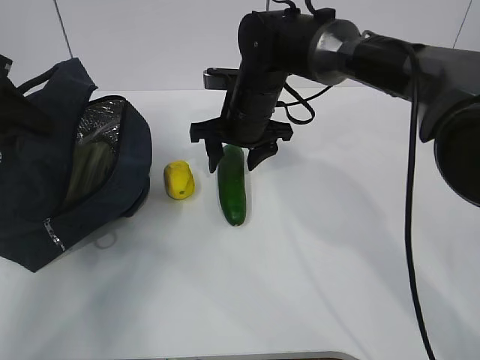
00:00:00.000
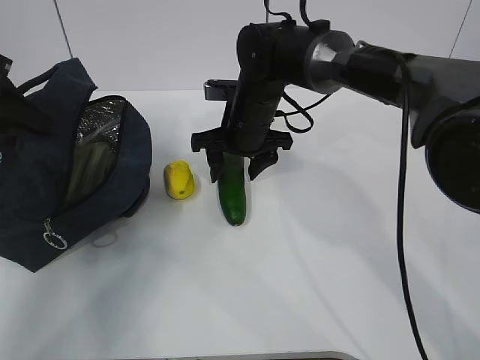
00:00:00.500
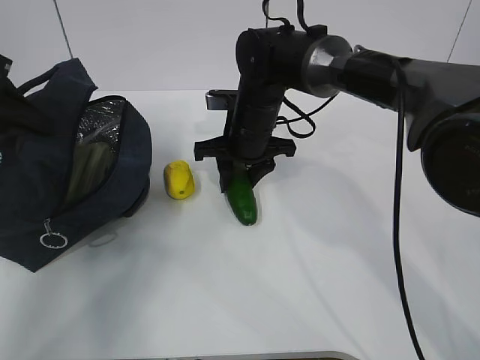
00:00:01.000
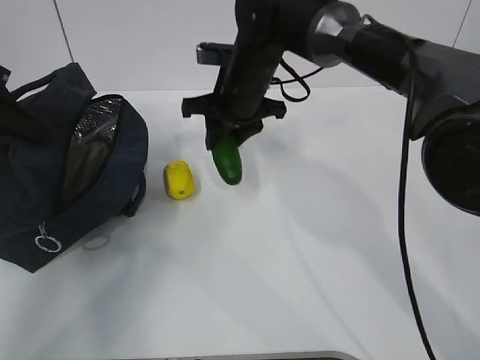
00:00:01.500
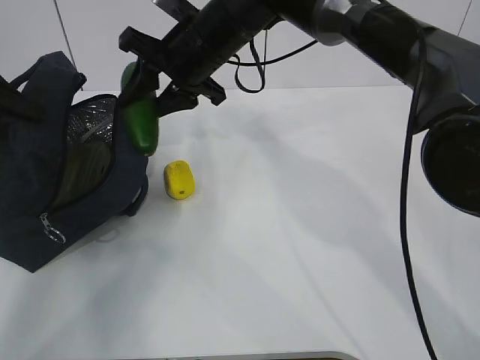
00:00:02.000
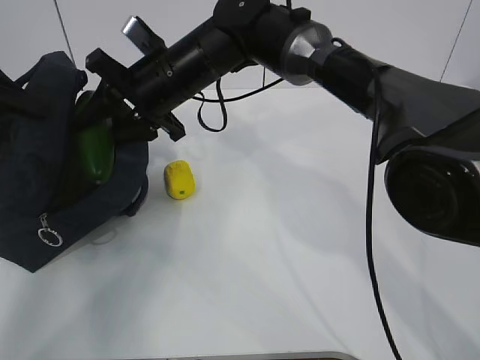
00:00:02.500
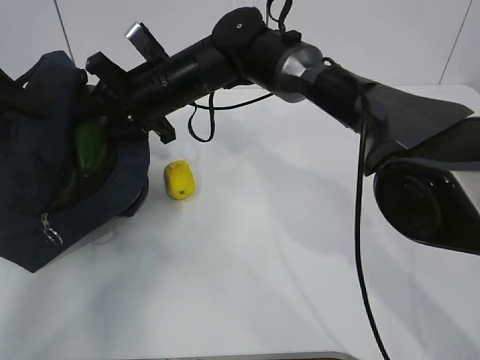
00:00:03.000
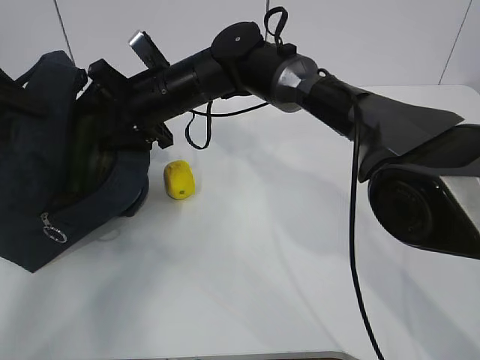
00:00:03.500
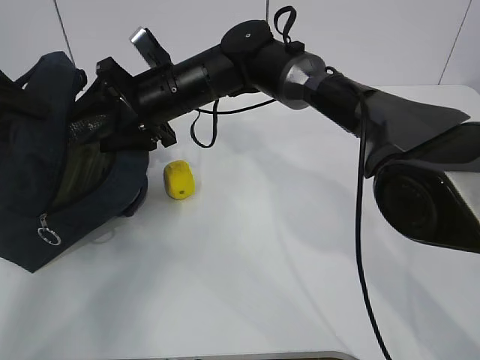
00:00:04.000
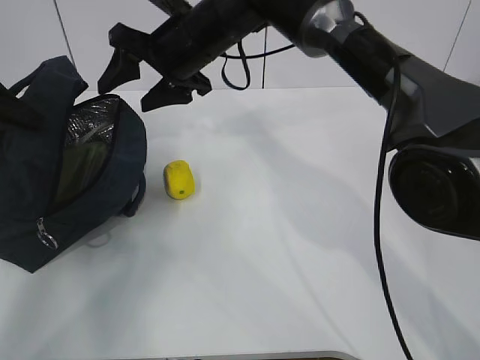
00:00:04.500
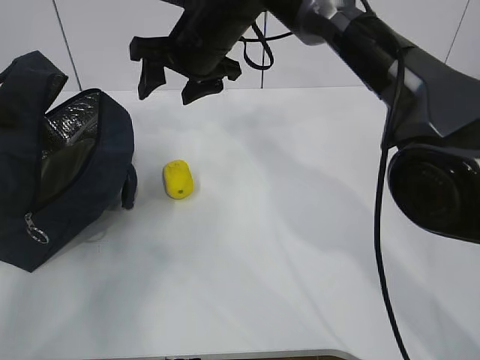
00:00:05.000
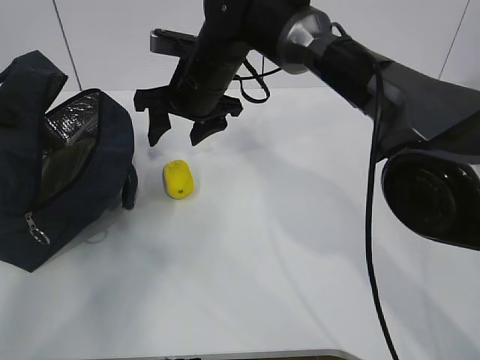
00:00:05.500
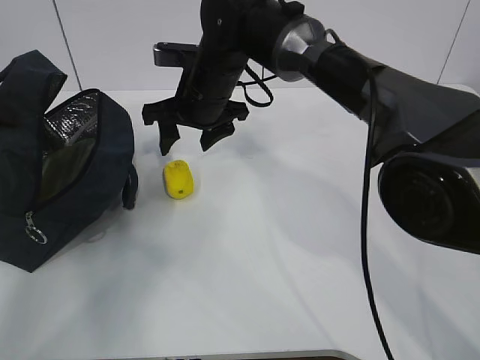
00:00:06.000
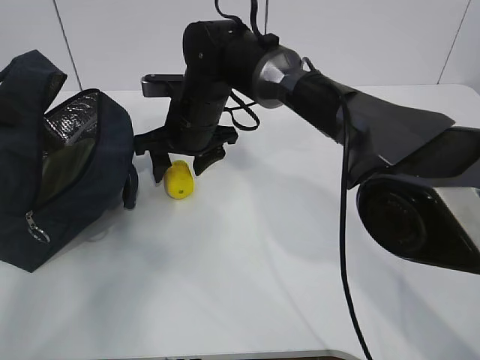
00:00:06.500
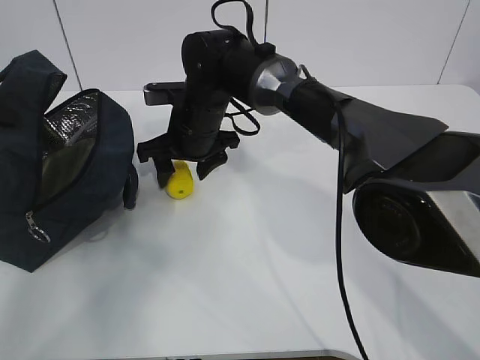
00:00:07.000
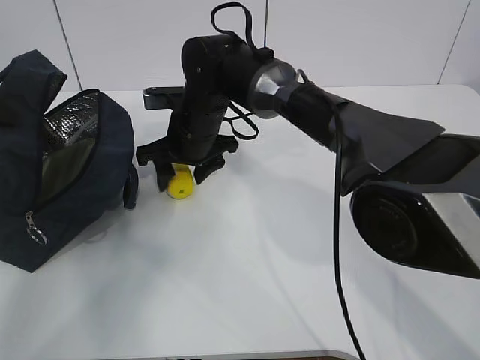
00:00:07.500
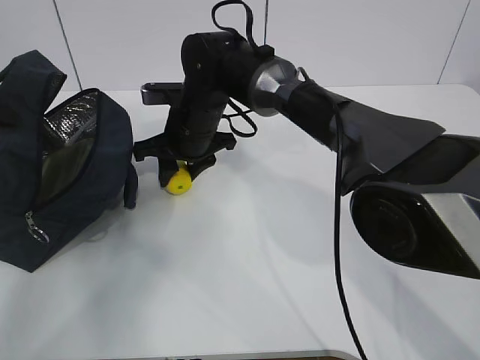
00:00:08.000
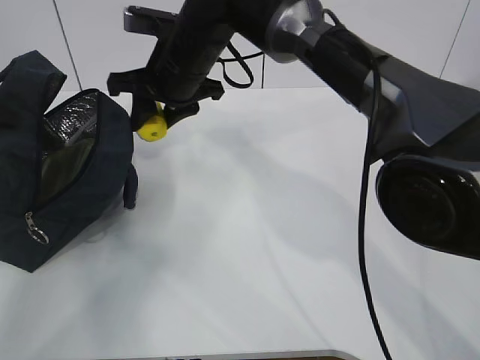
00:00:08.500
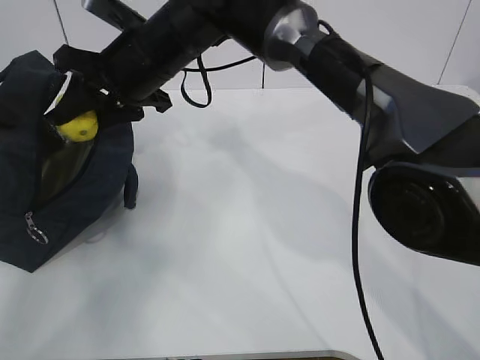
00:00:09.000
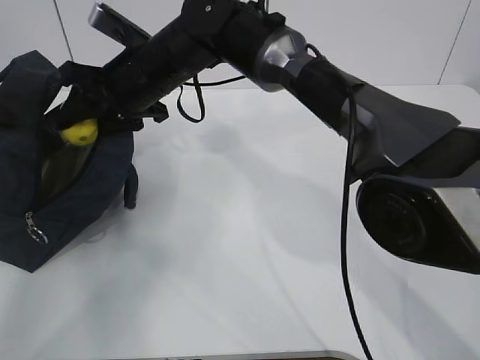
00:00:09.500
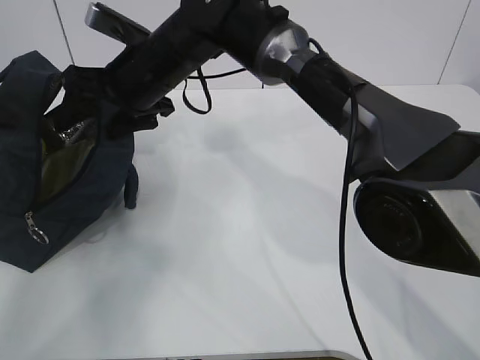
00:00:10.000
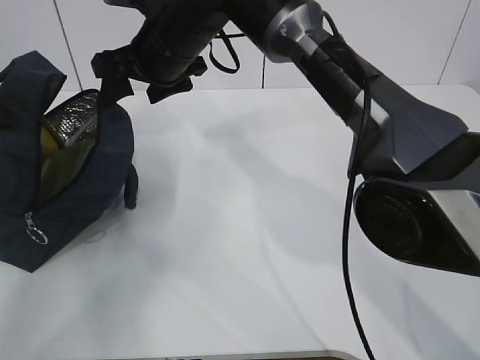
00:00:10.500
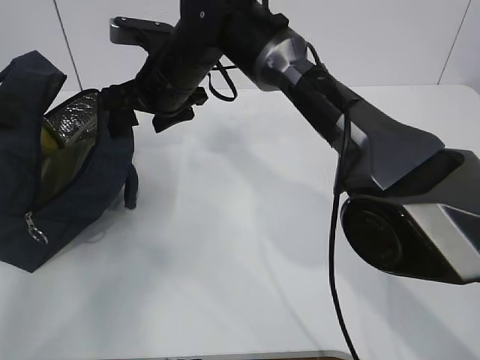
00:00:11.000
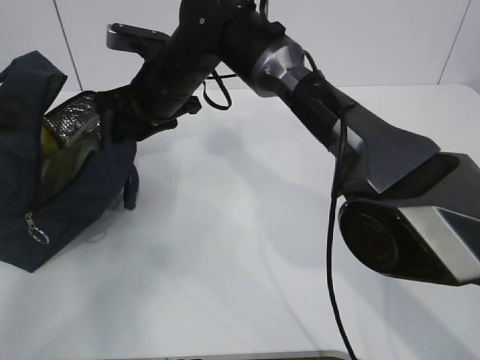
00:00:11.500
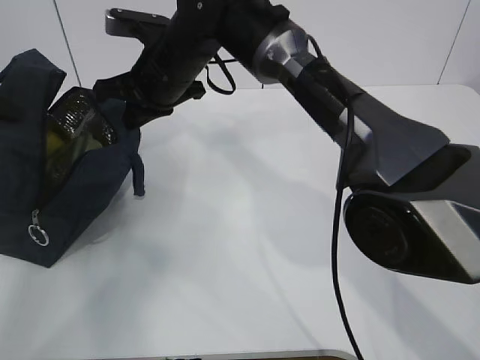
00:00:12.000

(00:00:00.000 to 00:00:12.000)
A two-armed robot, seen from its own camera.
Step, 00:00:00.000 - 00:00:02.500: Grab the lemon with your right hand.
Step, 00:00:05.000 - 00:00:06.000: Grab the lunch bag with your right hand.
Step, 00:00:06.500 - 00:00:08.500: Move the lunch bag to the right.
00:00:00.000 - 00:00:02.000: The right gripper heads upward, covering some 10 cm, and closes its fingers.
00:00:02.000 - 00:00:04.000: The right gripper shifts roughly 5 cm downward, and opens up.
00:00:06.000 - 00:00:08.000: The right gripper shifts by approximately 5 cm, and closes its fingers.
00:00:08.000 - 00:00:10.000: The right gripper shifts about 10 cm upward, and opens up.
00:00:10.000 - 00:00:12.000: The right gripper closes its fingers.

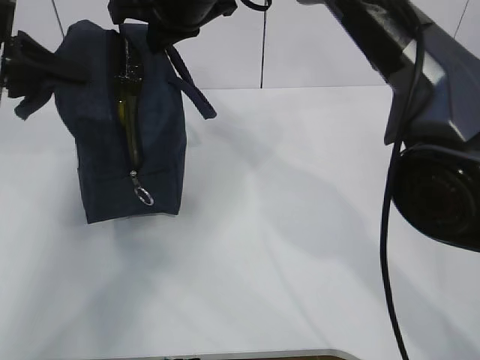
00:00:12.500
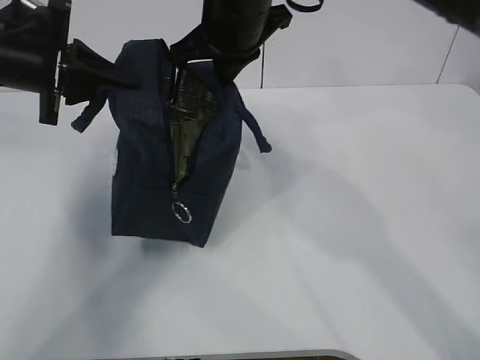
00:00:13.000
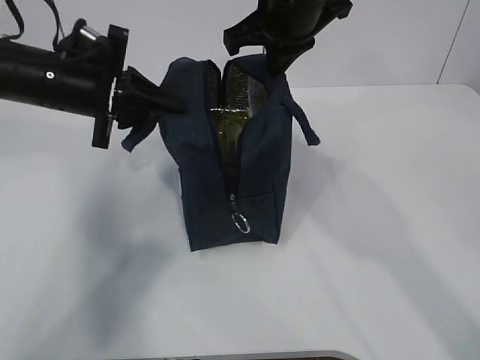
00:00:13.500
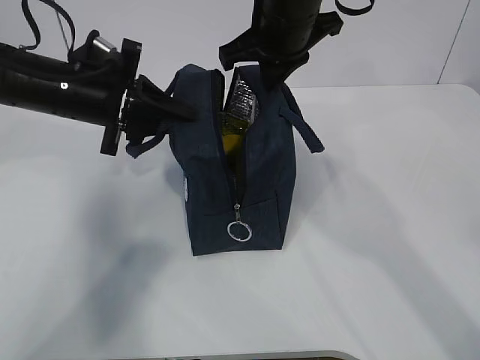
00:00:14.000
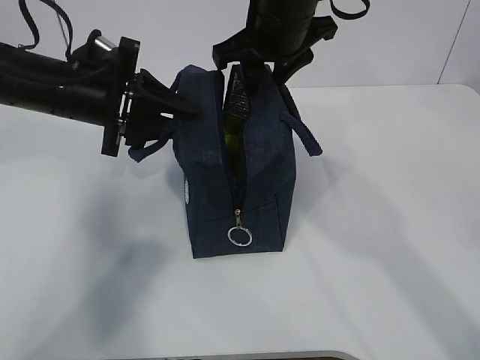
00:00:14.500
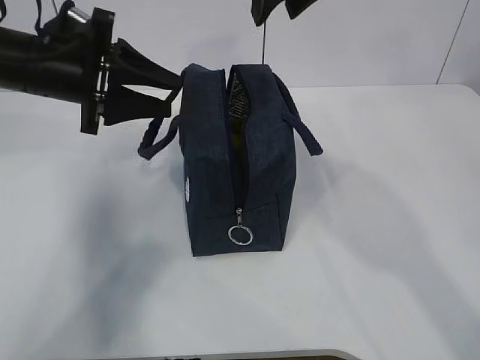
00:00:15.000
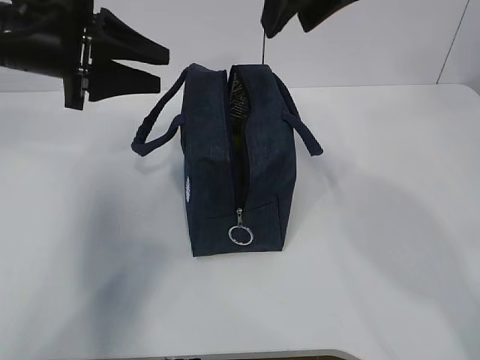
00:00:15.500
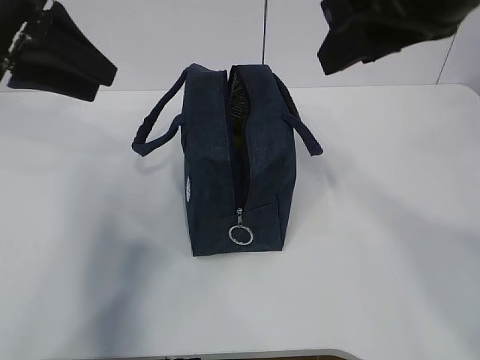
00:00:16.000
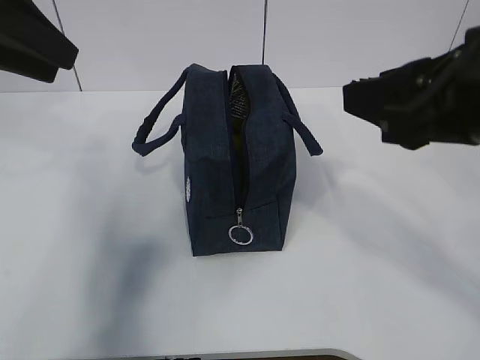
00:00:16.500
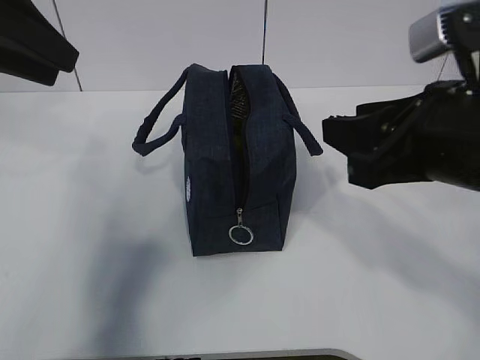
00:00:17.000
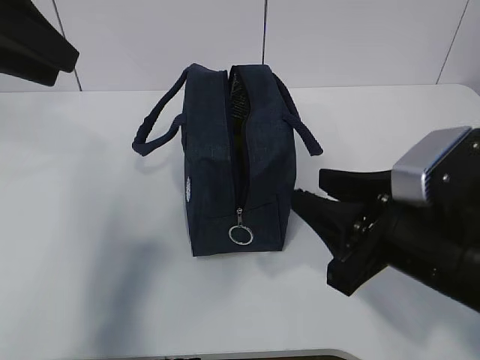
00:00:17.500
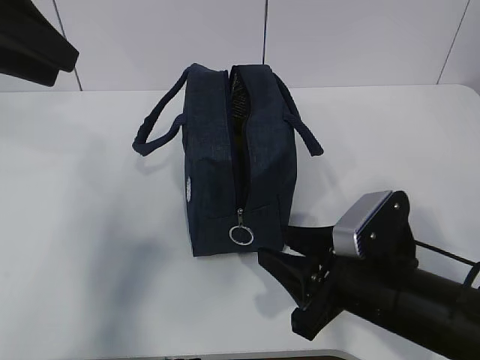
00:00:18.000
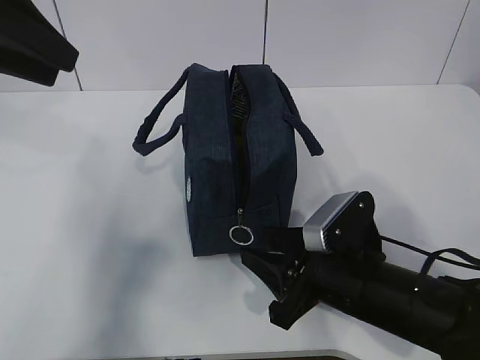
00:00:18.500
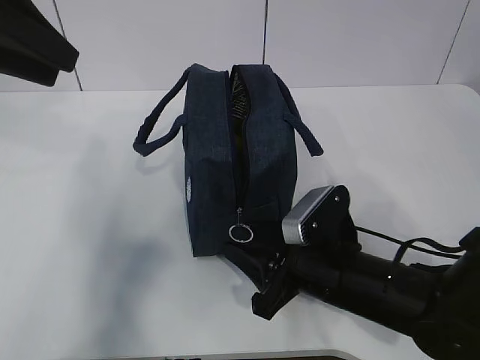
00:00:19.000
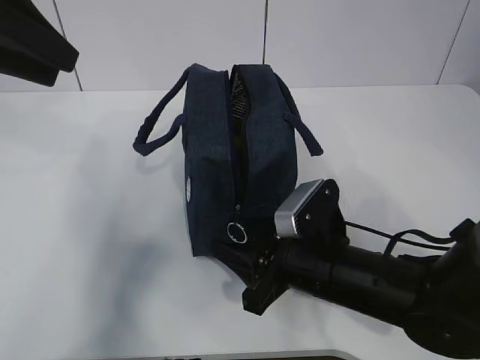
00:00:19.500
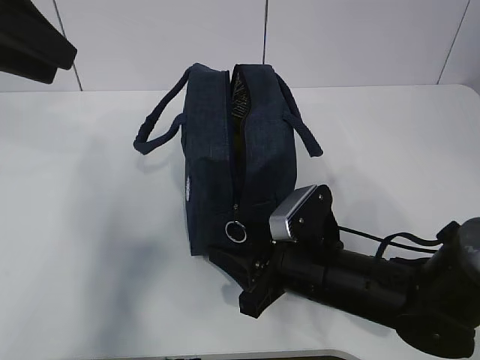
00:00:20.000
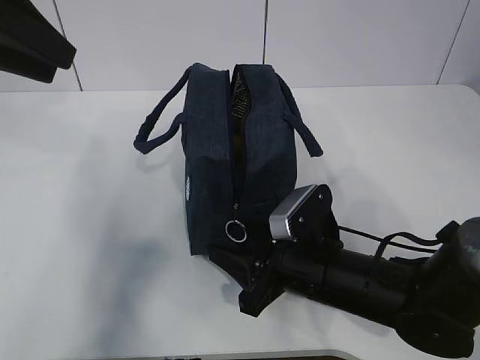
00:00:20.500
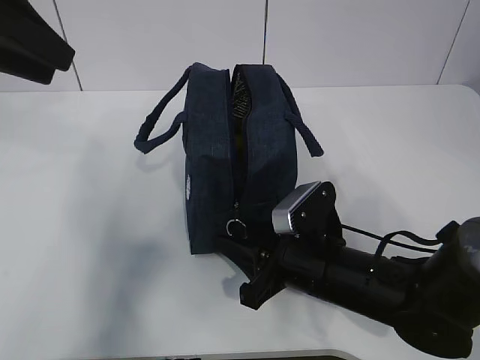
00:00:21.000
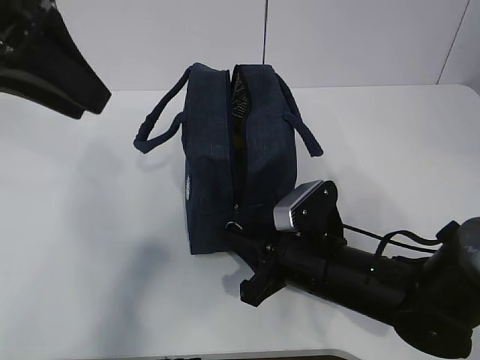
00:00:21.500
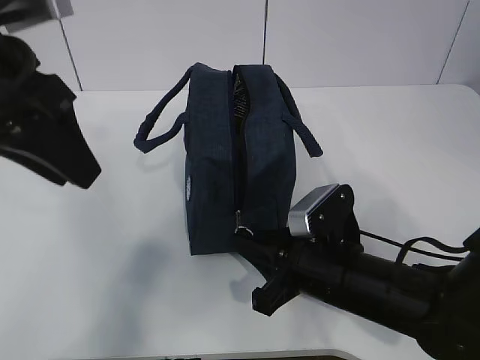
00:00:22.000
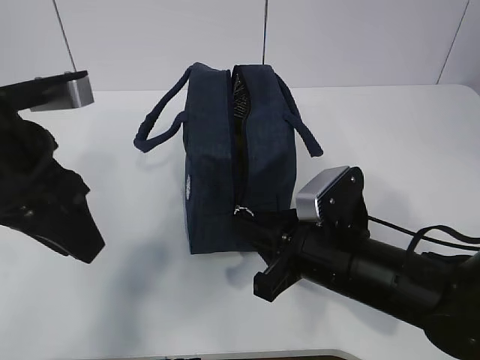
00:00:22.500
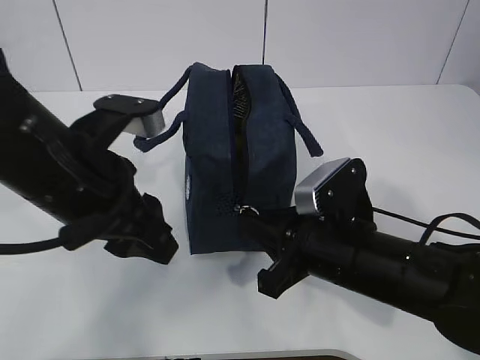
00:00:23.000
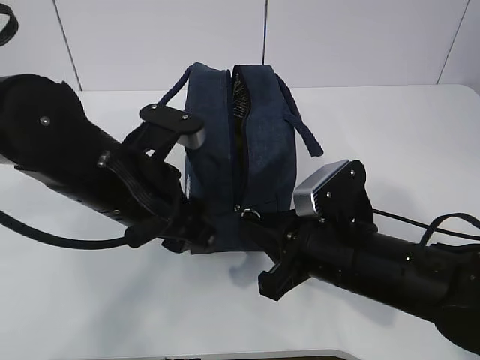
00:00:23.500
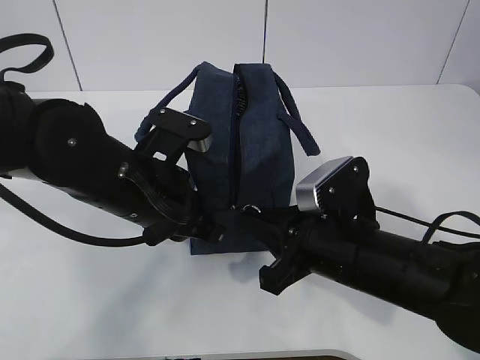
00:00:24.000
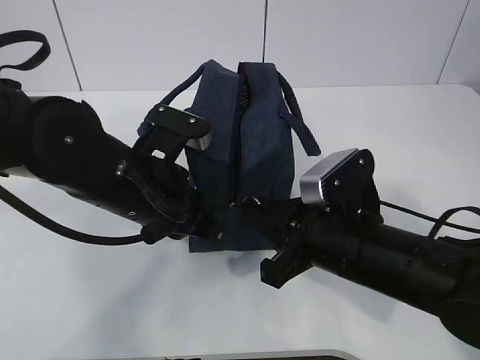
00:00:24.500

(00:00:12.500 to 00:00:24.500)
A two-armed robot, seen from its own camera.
Step, 00:00:12.500 - 00:00:20.000: Grab the lunch bag with your left hand.
00:00:12.500 - 00:00:14.500: The left gripper shifts approximately 15 cm to the right and downward, and opens its fingers, while the right gripper shifts roughly 10 cm to the right, and opens its fingers.
00:00:14.500 - 00:00:16.500: The right gripper moves backward and to the right, some 25 cm. Meanwhile the left gripper heads upward, backward and to the left, covering some 20 cm.
00:00:16.500 - 00:00:18.500: The right gripper moves downward, about 20 cm.
00:00:18.500 - 00:00:20.500: There are only small adjustments of the grippers.
00:00:20.500 - 00:00:22.500: The left gripper travels downward, to the right and backward by about 10 cm. The right gripper closes its fingers.
00:00:22.500 - 00:00:24.500: The left gripper travels downward and to the right by approximately 15 cm, and closes.

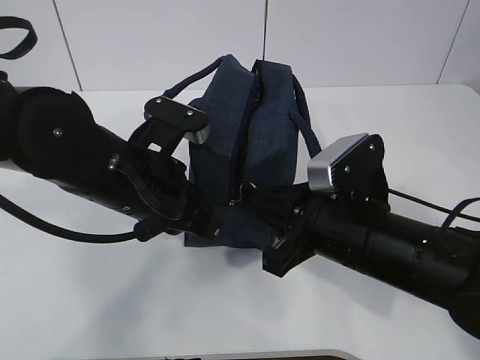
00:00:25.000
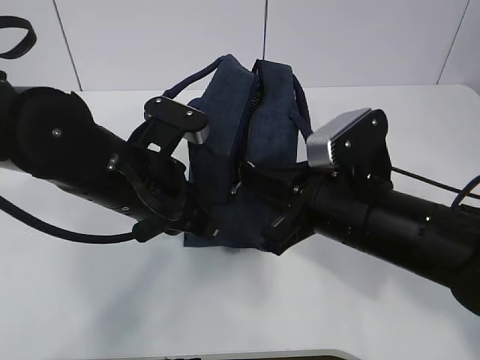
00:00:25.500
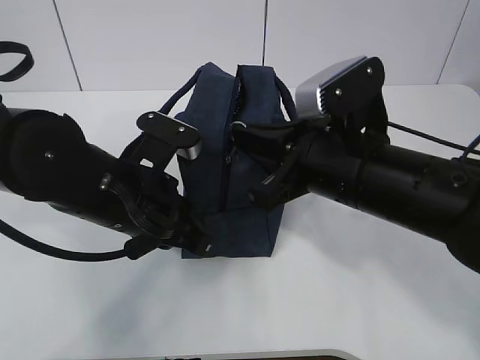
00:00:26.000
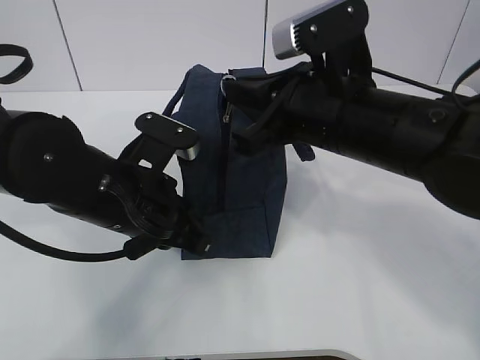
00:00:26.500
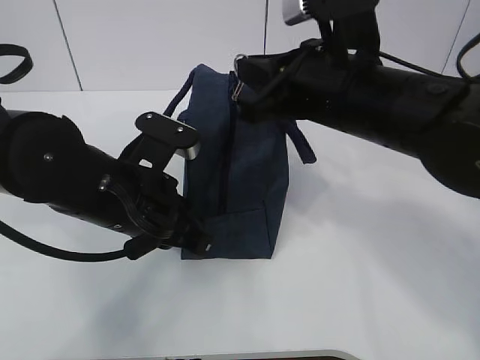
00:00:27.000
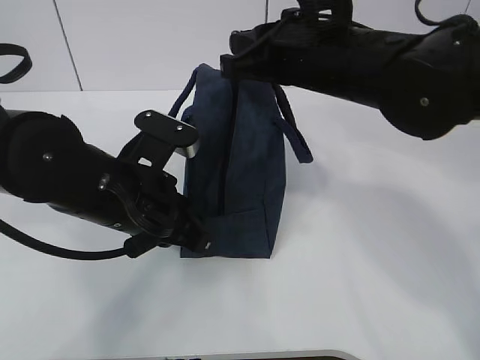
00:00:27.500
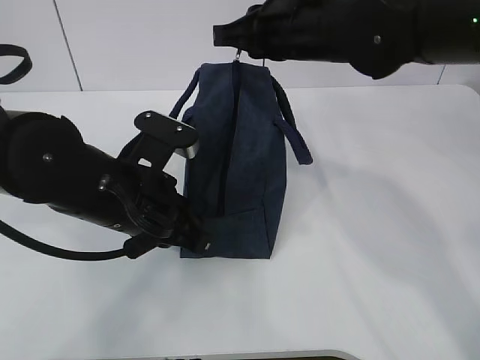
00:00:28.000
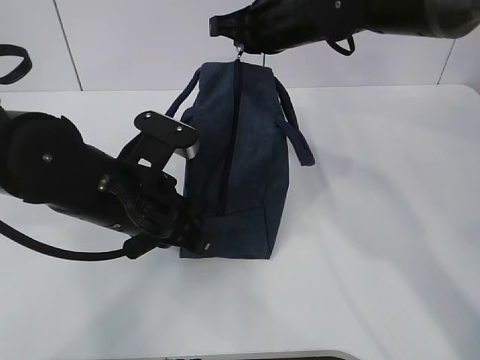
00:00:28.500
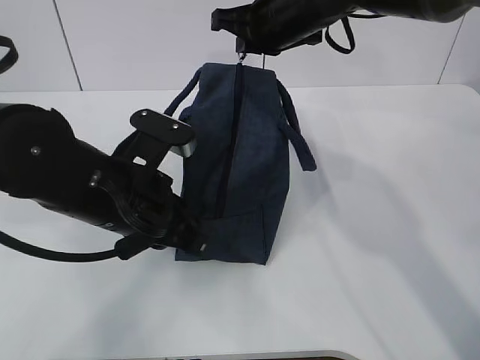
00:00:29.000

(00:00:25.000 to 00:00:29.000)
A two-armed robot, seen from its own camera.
00:00:25.000 - 00:00:27.000: The right gripper goes about 10 cm upward and forward.
00:00:27.000 - 00:00:29.000: The right gripper heads forward, covering about 15 cm.
